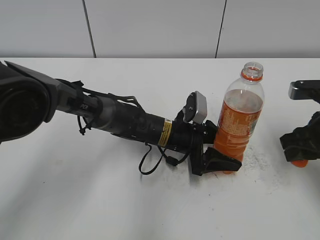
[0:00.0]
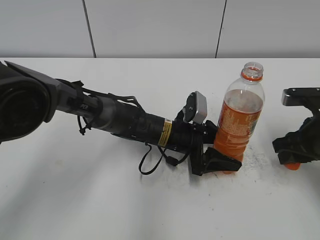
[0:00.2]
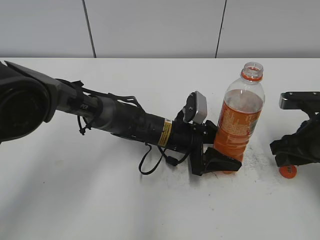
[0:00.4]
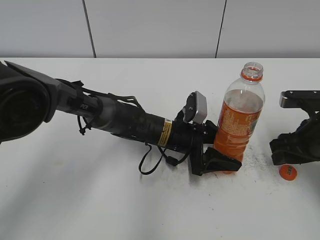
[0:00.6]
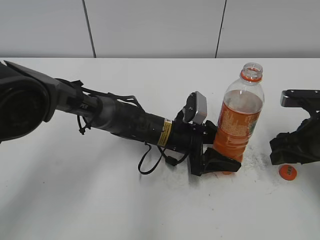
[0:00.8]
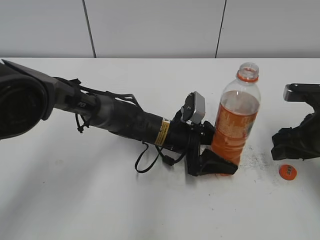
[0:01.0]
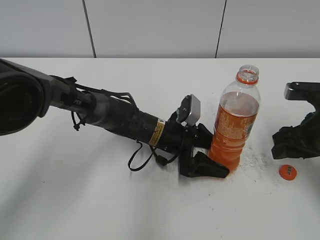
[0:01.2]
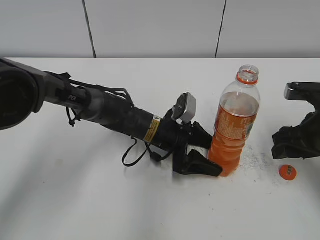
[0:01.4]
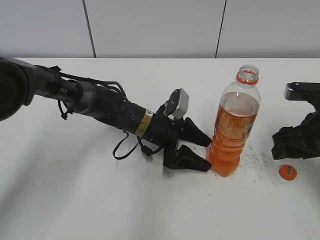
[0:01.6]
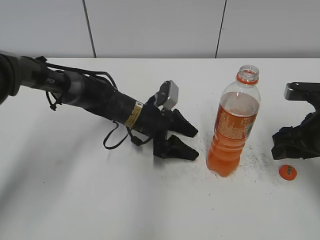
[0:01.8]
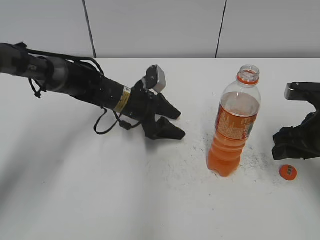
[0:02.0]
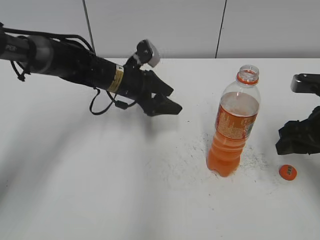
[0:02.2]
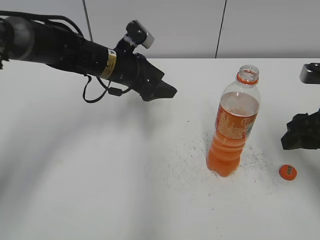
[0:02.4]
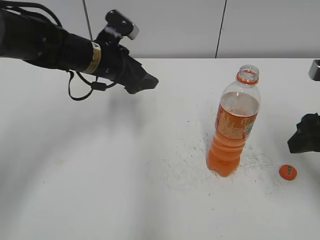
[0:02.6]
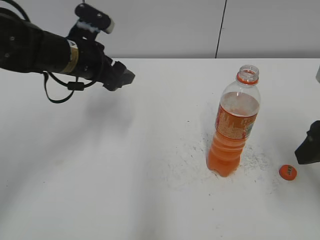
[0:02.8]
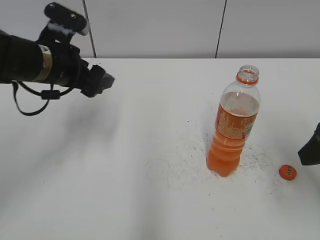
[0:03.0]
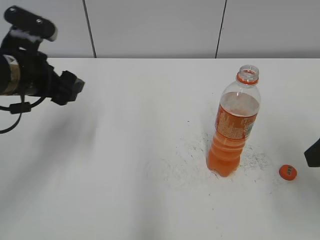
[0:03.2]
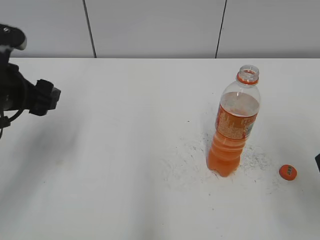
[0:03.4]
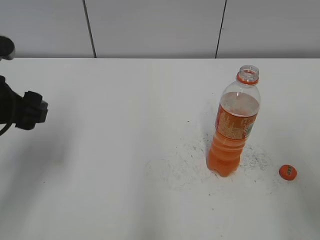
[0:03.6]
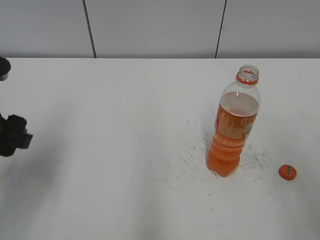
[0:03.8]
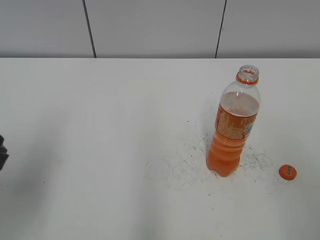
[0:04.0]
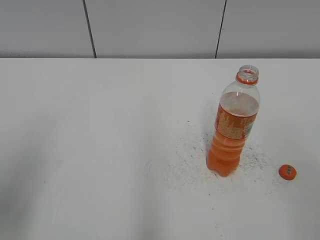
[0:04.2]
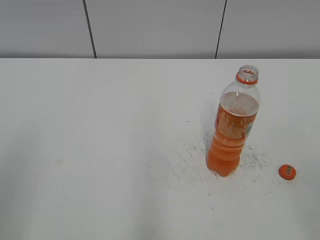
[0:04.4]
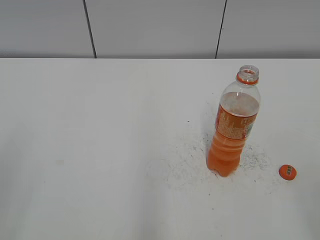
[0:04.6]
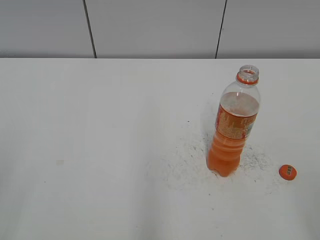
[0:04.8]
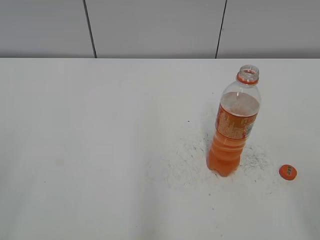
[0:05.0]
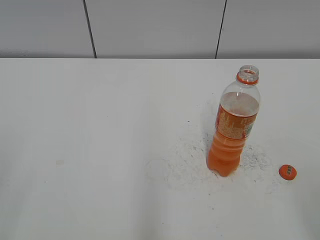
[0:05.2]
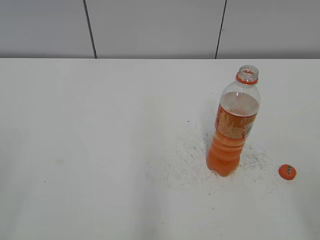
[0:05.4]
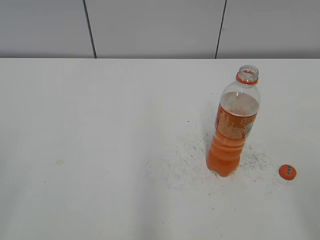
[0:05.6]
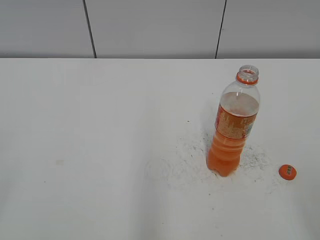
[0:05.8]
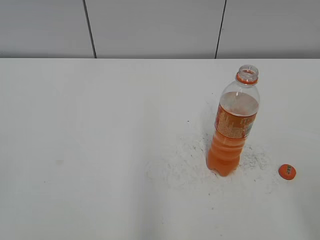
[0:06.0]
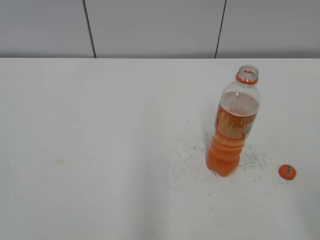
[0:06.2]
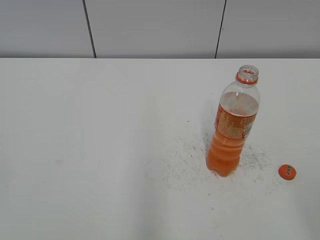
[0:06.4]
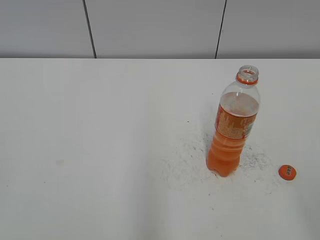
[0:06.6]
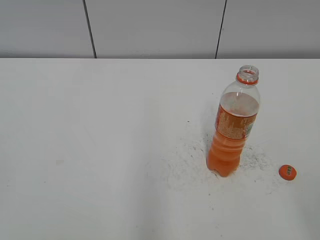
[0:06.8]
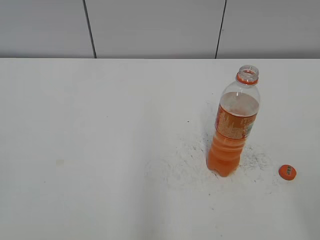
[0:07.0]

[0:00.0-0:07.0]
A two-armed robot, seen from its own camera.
Step, 0:00.0 to 0:01.2: Place the bottle cap on the table with the right hand.
Step, 0:01.4 to 0:01.6: Place the Mirinda with the left hand.
0:00.0 to 0:01.4: The left gripper opens. Meanwhile the right gripper opens its fingers.
0:01.4 to 0:02.8: The right gripper moves upward and backward, approximately 10 cm; the left gripper travels upward and to the left by roughly 20 cm.
0:02.8 to 0:04.2: The right gripper shifts about 20 cm backward and upward. Meanwhile the left gripper heads backward and to the left, covering about 25 cm.
0:04.2 to 0:05.6: The left gripper goes about 10 cm backward and to the left.
